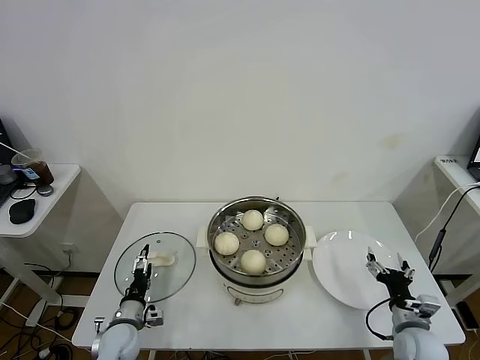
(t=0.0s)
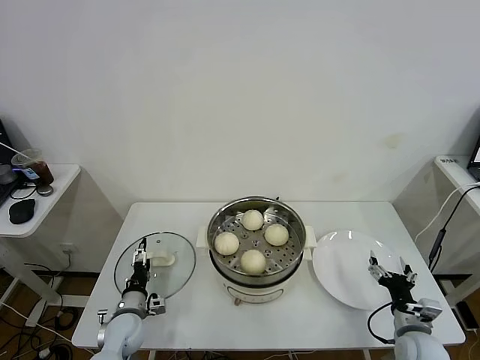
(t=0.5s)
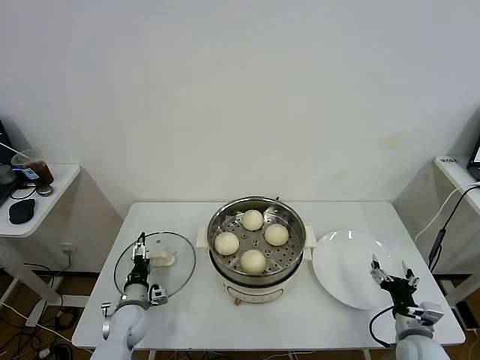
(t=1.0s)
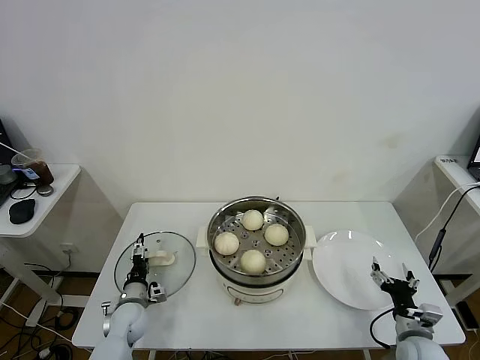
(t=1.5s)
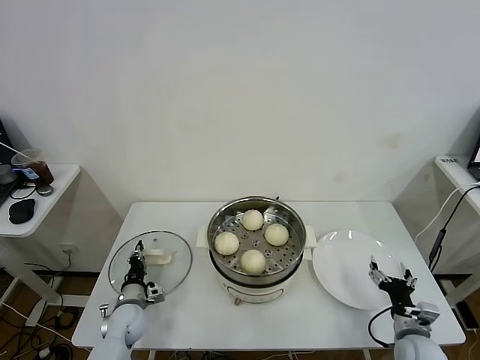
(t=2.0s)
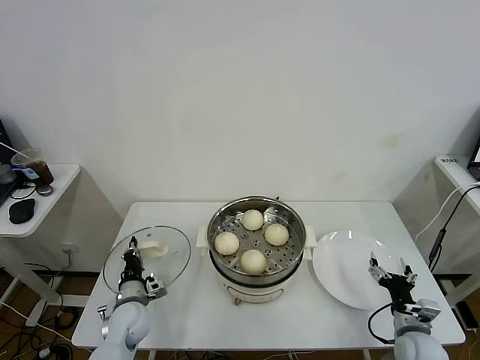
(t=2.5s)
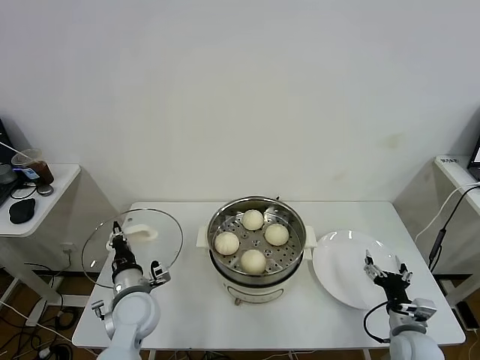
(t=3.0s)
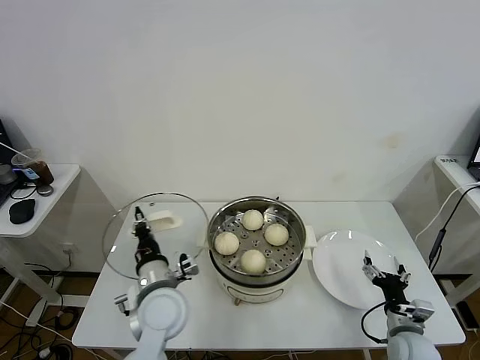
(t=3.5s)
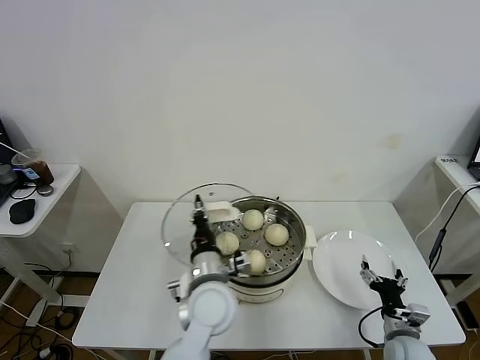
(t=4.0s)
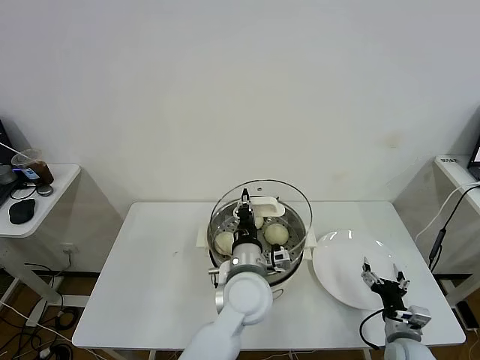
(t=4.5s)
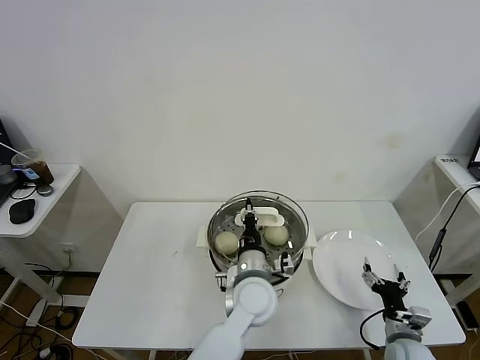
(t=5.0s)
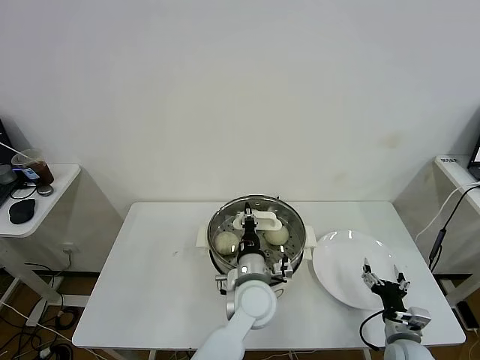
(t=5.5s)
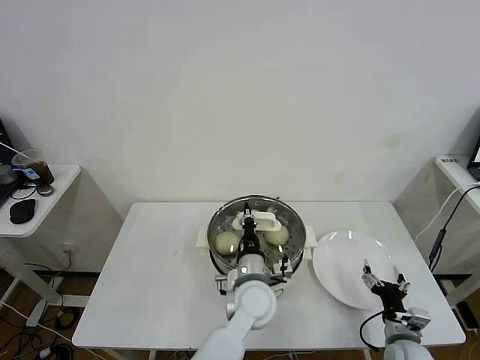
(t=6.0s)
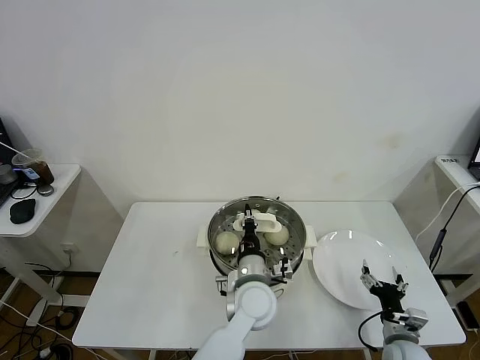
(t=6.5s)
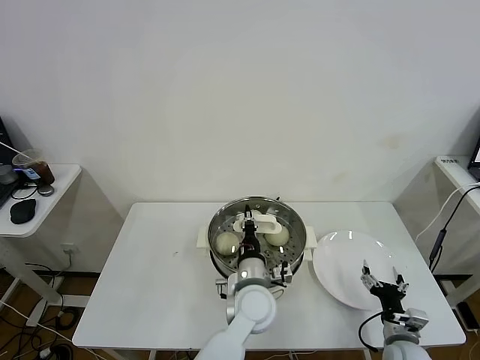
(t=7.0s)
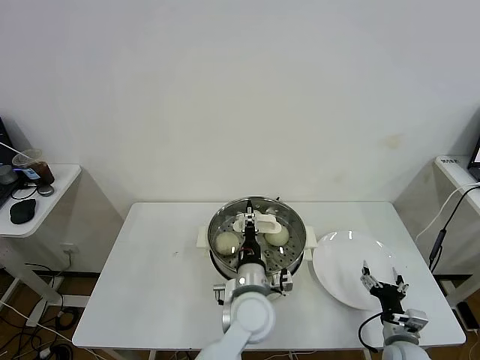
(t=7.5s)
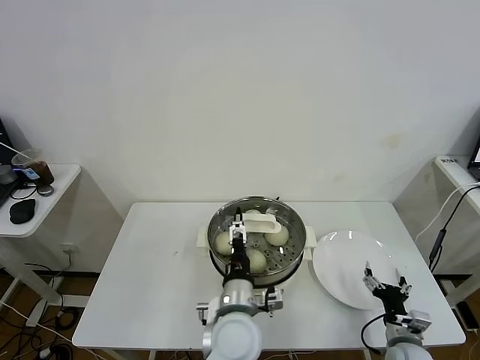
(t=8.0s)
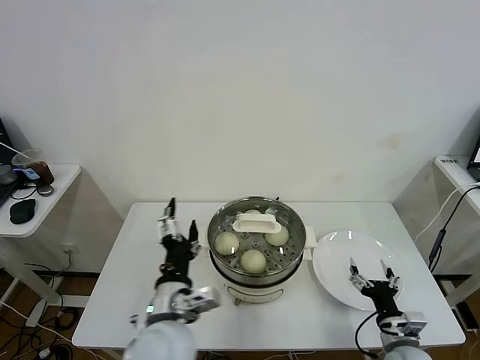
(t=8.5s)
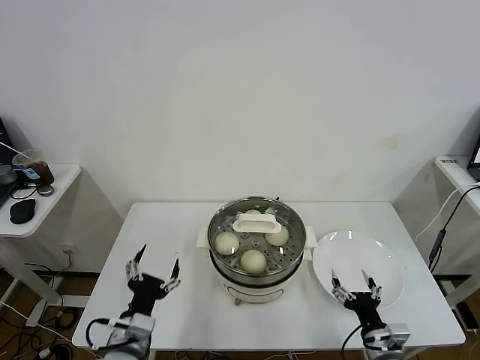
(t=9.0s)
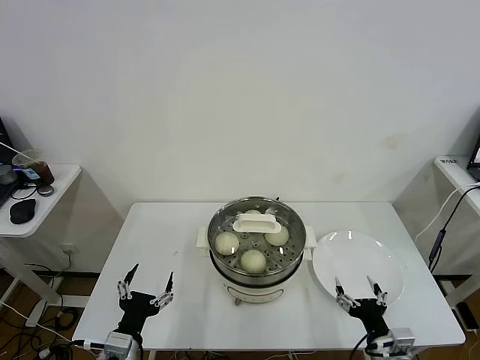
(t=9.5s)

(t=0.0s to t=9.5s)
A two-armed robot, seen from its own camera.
Task of the whole recording: take steamed baozi put them in steamer.
Step, t=0.0s - t=2.0s: Grasp the pot lid with left gripper.
Step, t=2.5s - t=7.5s: Place the pot lid on the steamer with left gripper.
t=0.0s - t=2.0s: The left gripper travels forward by roughly 5 cm, and closes.
t=2.0s - t=4.0s: The left gripper shifts roughly 30 cm to the right and upward.
t=4.0s - t=5.5s: The left gripper goes approximately 10 cm to the right.
t=5.5s - t=7.5s: The left gripper opens its fingers.
t=7.5s - t=9.5s: The right gripper goes roughly 10 cm backward, to the left and upward; the left gripper shifts approximately 30 cm to the left and backward, and opens up.

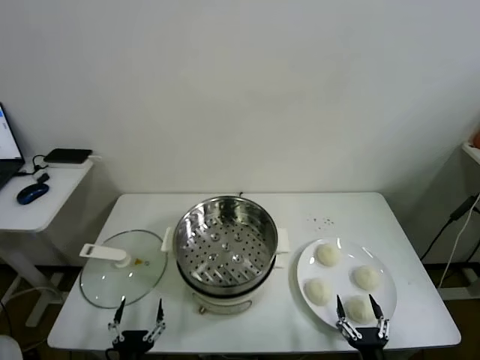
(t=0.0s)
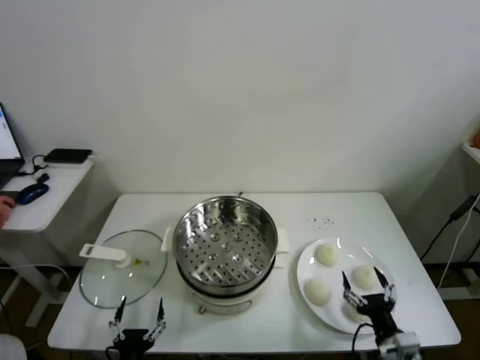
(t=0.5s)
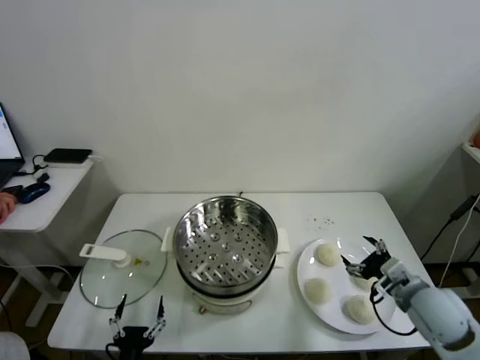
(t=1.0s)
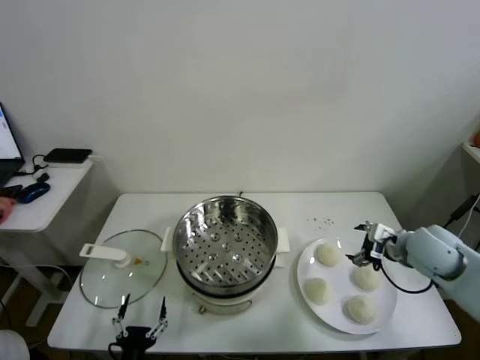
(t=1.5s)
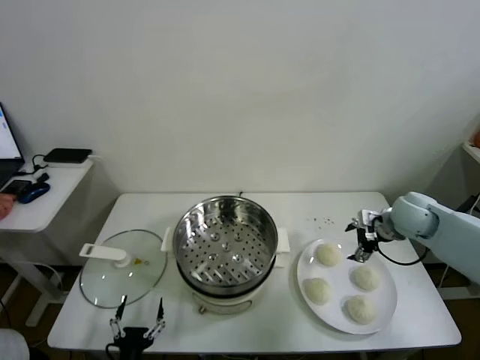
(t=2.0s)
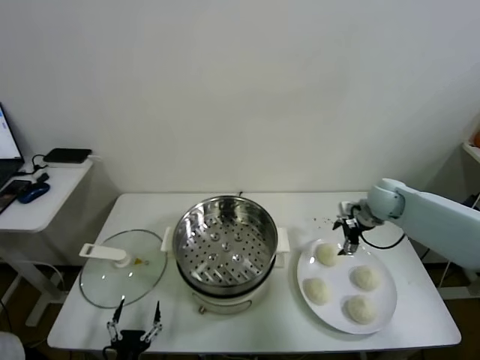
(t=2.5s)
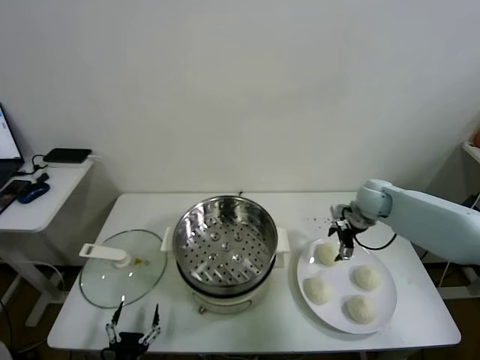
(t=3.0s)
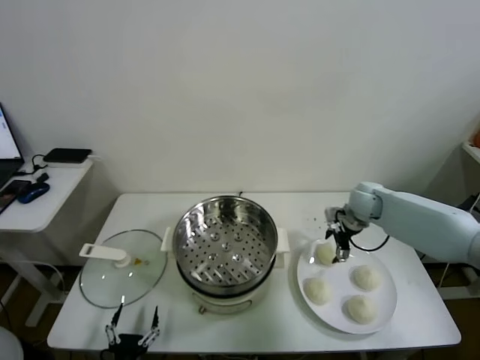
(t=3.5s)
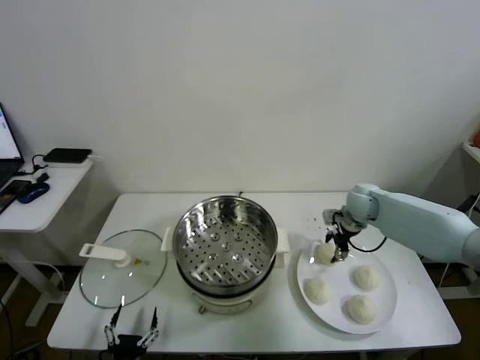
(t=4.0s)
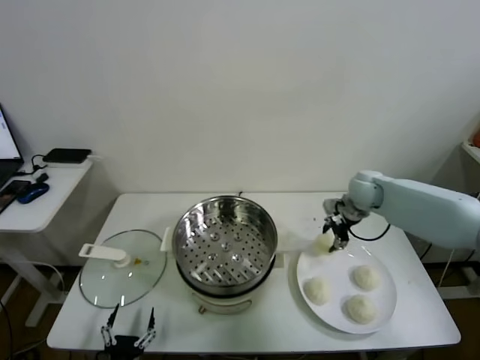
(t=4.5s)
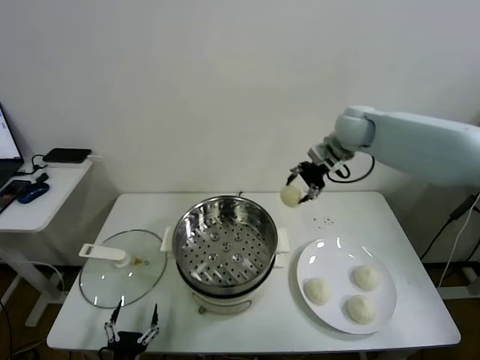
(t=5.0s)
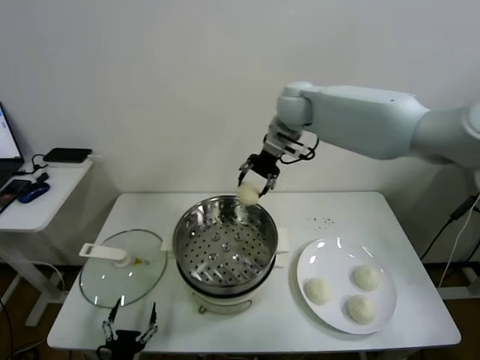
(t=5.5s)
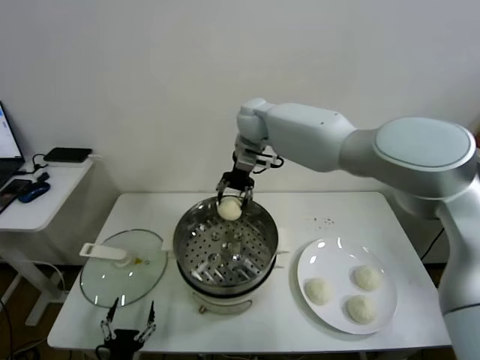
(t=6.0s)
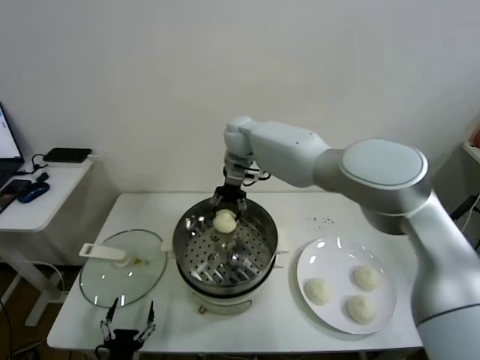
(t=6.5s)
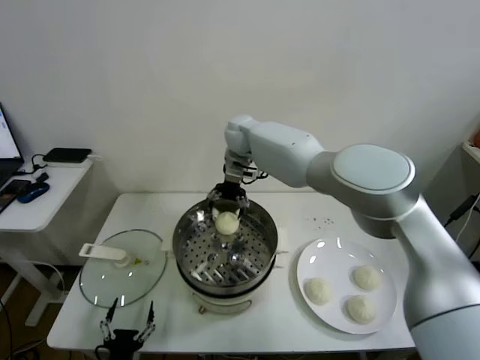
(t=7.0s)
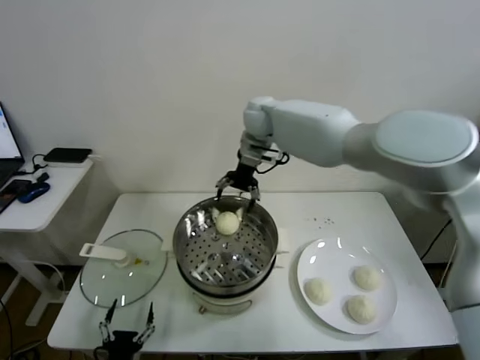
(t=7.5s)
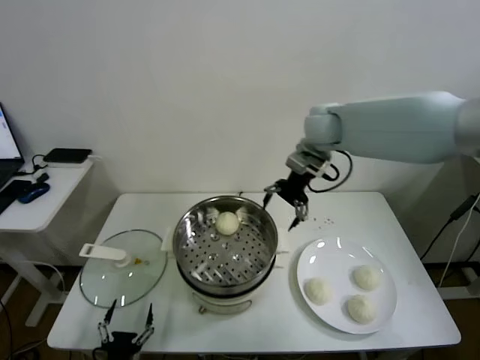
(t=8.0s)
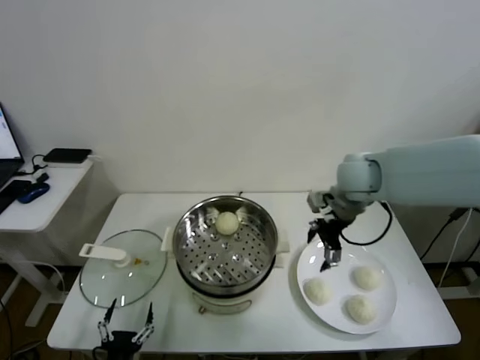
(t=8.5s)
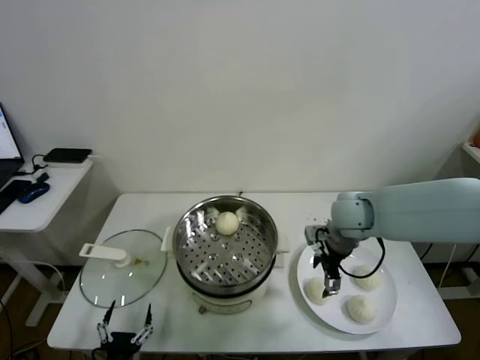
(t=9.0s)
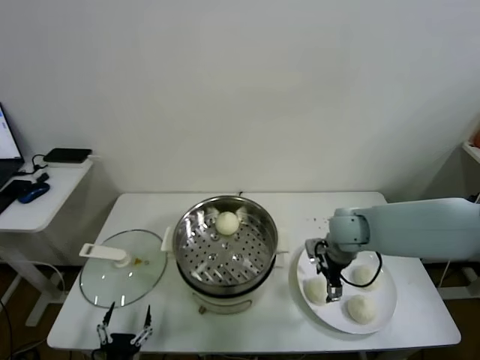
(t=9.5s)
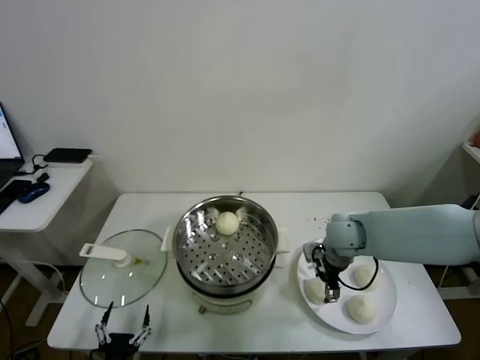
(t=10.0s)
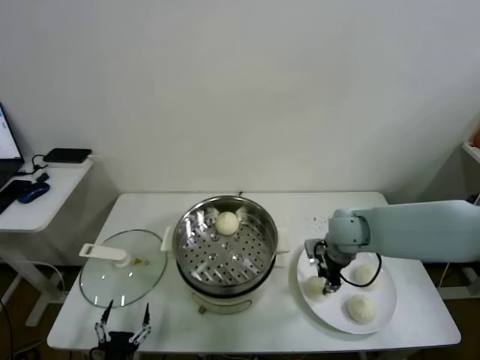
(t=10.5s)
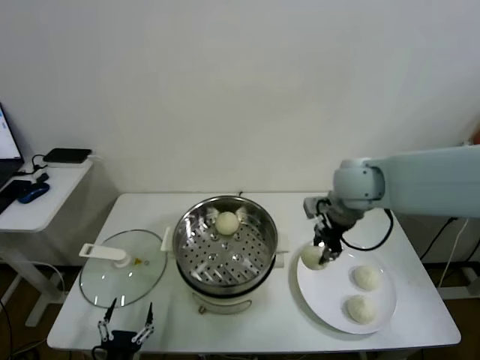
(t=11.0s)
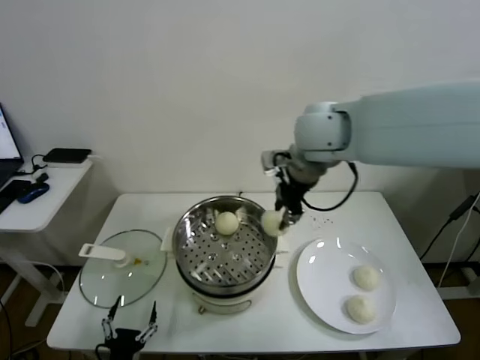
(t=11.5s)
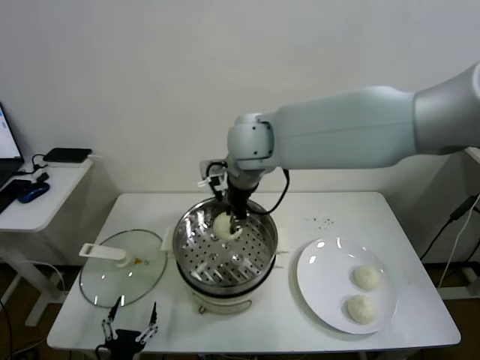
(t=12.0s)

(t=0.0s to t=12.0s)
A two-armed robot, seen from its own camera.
Task of the whole recording: take steamed baozi put them in steamer.
Step, t=0.0s - t=4.0s: Grasp the baozi in the plate with right gripper.
Step, t=4.5s - t=7.0s: Place the baozi on the steamer with right gripper.
Step, t=7.5s - t=10.0s: Grasp the baozi in the plate with right gripper.
t=2.0s - t=4.0s: The right gripper goes approximately 10 cm forward and to the left, and closes up.
t=4.0s - t=6.0s: The right gripper shifts some 35 cm to the left and upward.
t=6.0s - t=8.0s: The right gripper travels to the right and backward by about 20 cm, and opens.
t=8.0s - t=10.0s: The right gripper travels downward and backward by some 25 cm.
t=10.0s - t=12.0s: The right gripper is displaced upward and to the left by approximately 35 cm, and closes.

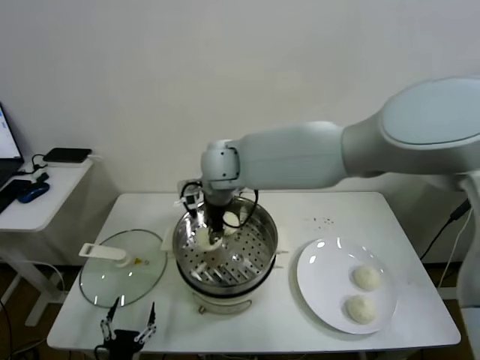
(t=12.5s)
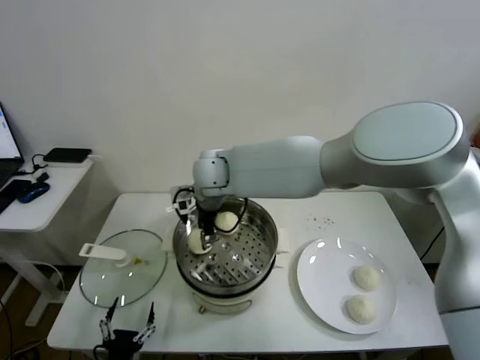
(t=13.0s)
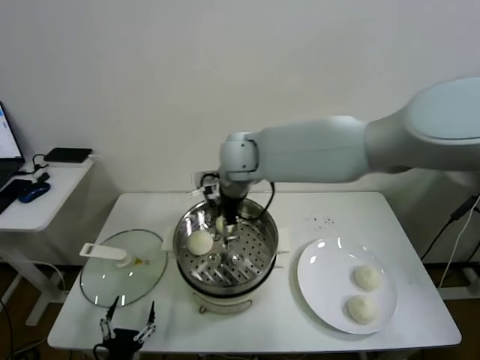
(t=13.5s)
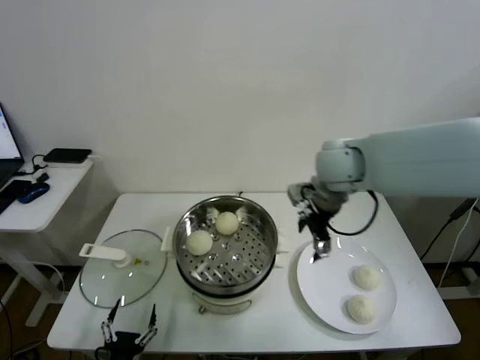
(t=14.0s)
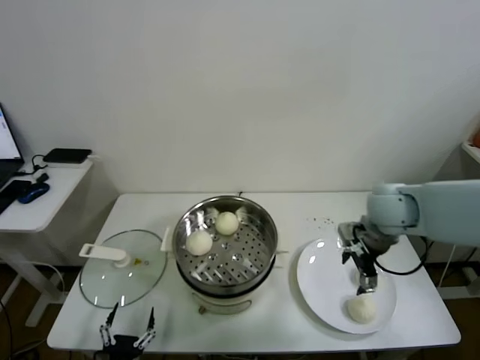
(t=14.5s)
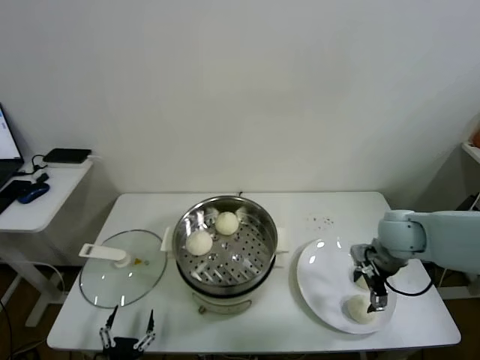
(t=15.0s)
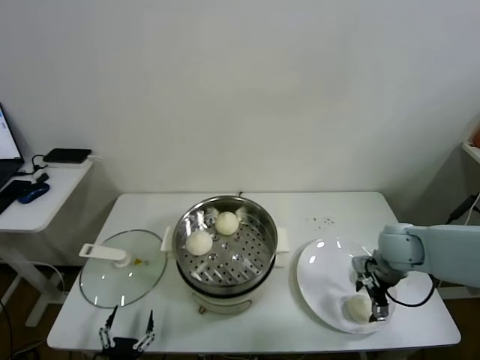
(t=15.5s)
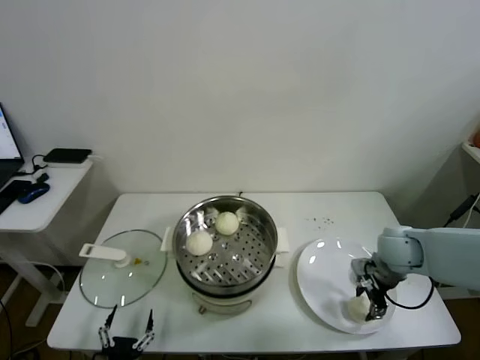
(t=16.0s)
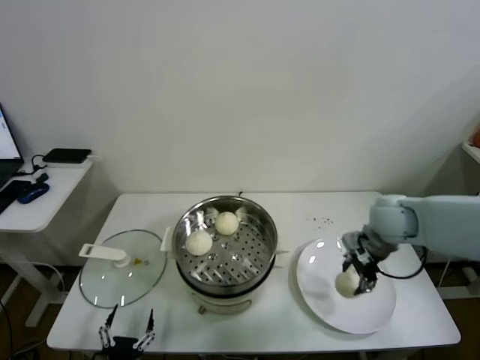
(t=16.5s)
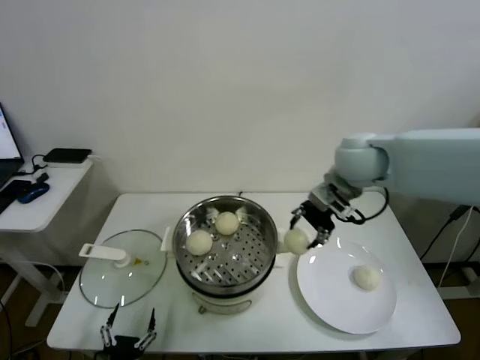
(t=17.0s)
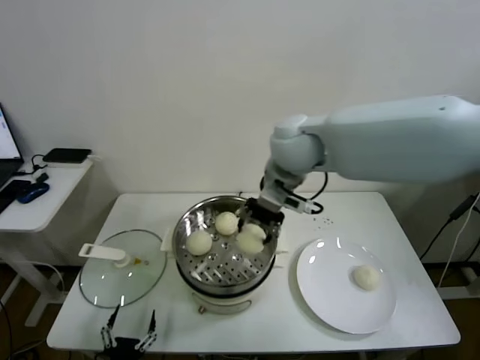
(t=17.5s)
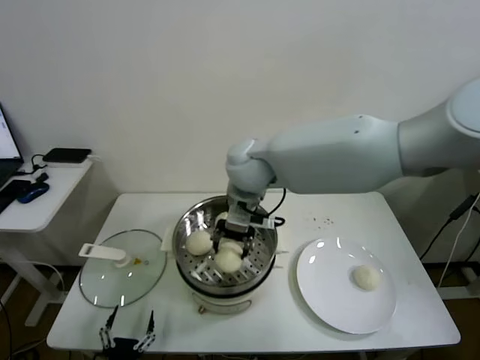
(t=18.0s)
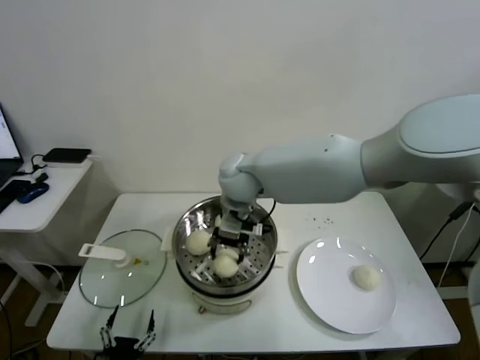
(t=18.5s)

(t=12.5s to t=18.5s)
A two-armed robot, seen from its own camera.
Task of the whole recording: take steamed baozi put them in steamer.
Step, t=13.5s - t=16.0s: Grasp the baozi in the plate with right gripper.
t=12.5s - t=14.5s: The right gripper moves to the right, roughly 35 cm, and opens up.
t=14.5s - t=16.5s: The right gripper travels downward and back again, roughly 10 cm each way, and closes up.
t=16.5s - t=18.5s: The right gripper heads to the left, covering approximately 30 cm.
